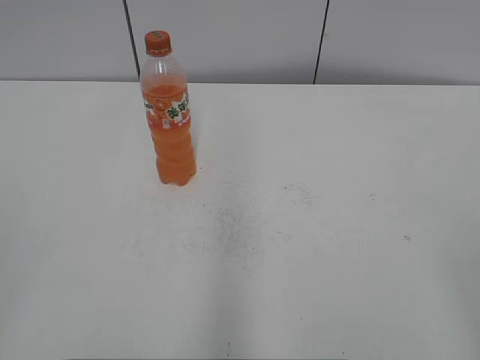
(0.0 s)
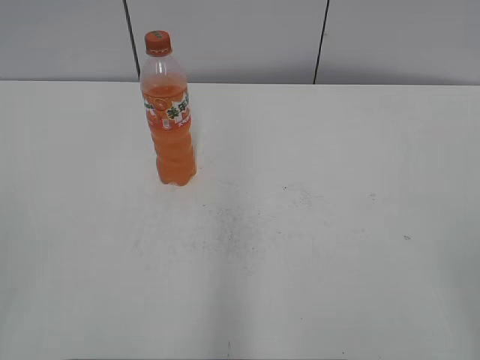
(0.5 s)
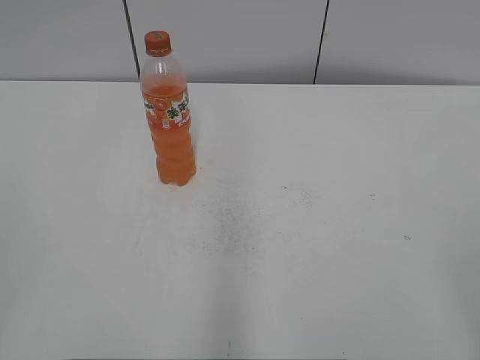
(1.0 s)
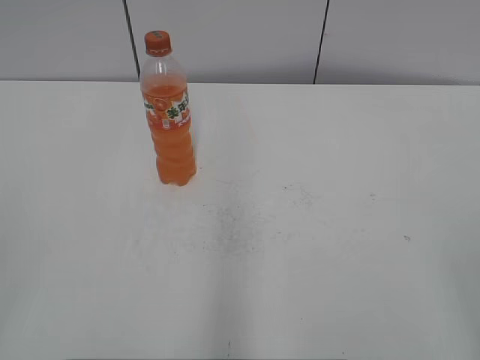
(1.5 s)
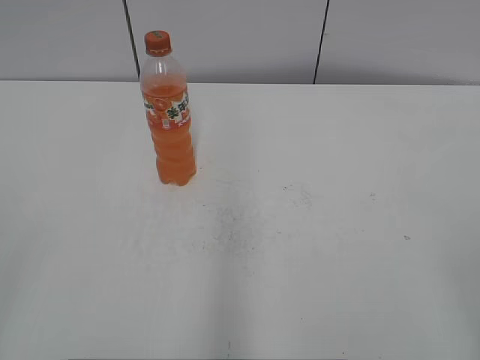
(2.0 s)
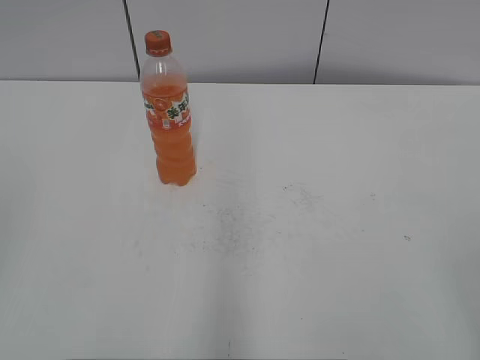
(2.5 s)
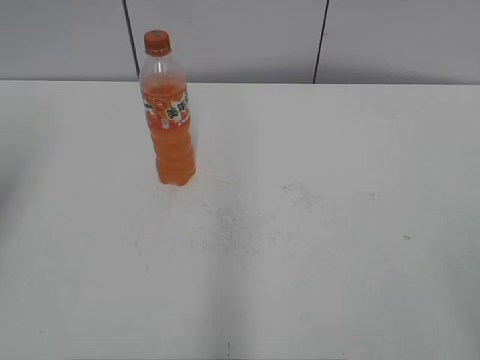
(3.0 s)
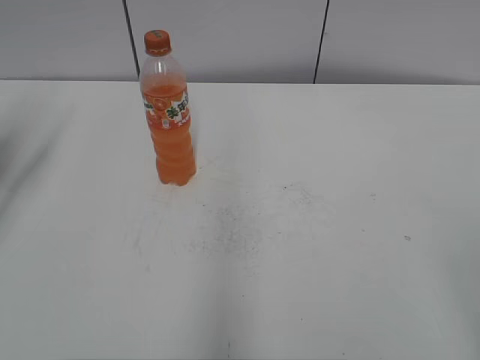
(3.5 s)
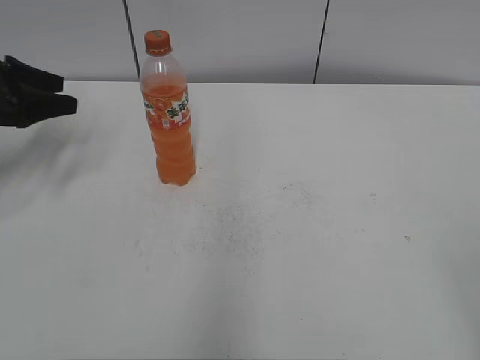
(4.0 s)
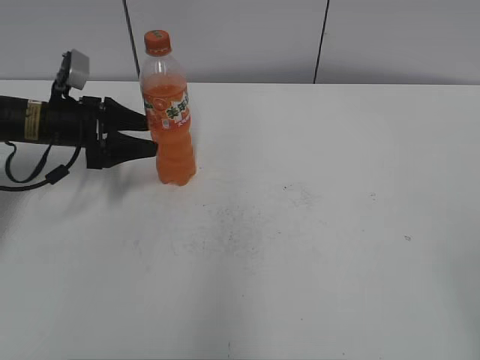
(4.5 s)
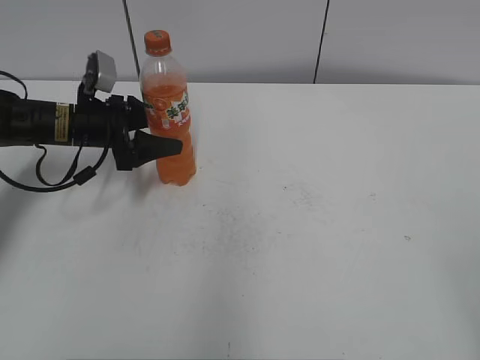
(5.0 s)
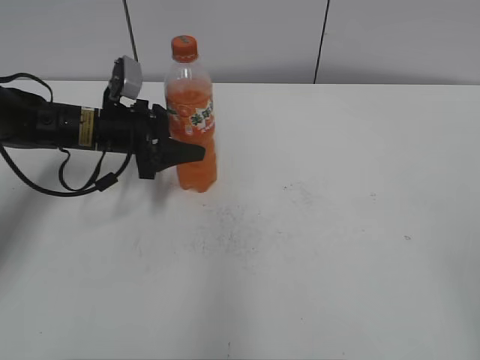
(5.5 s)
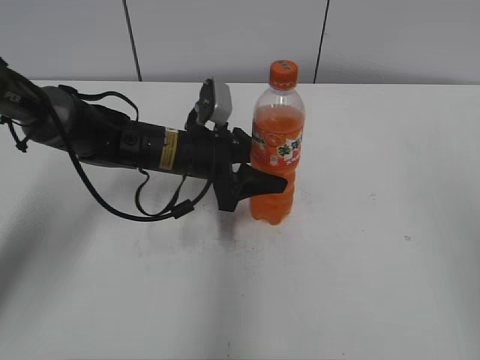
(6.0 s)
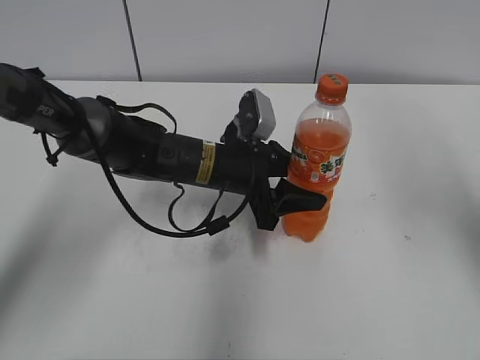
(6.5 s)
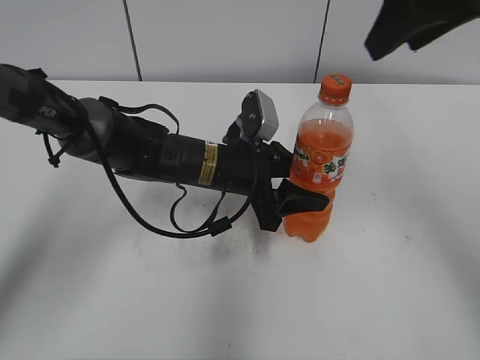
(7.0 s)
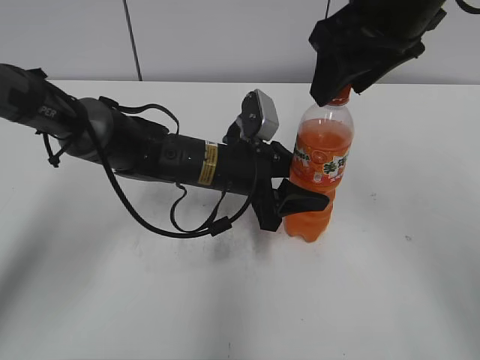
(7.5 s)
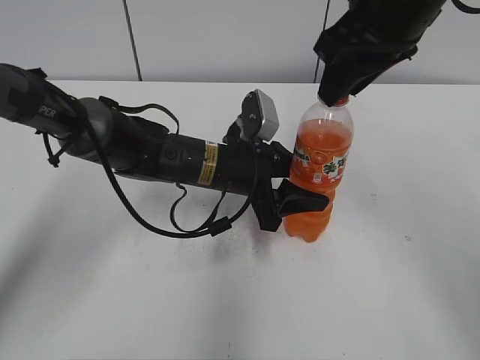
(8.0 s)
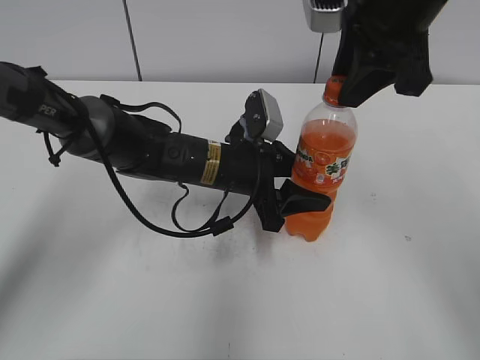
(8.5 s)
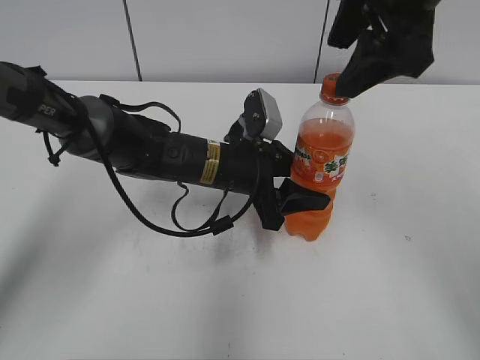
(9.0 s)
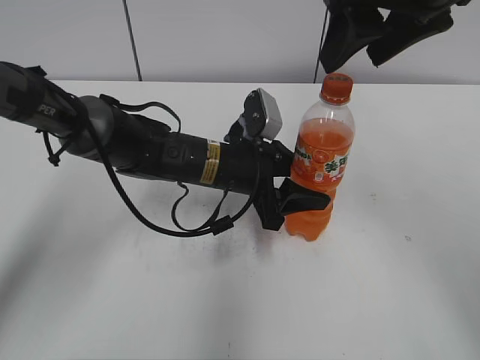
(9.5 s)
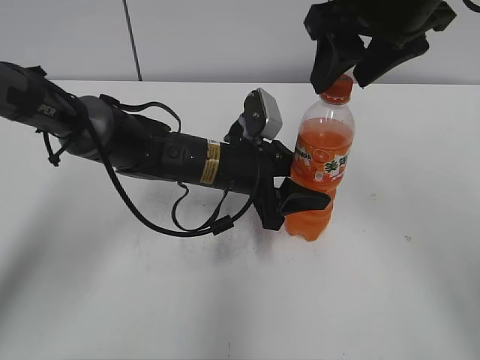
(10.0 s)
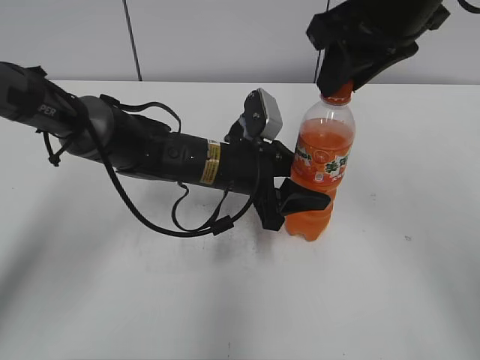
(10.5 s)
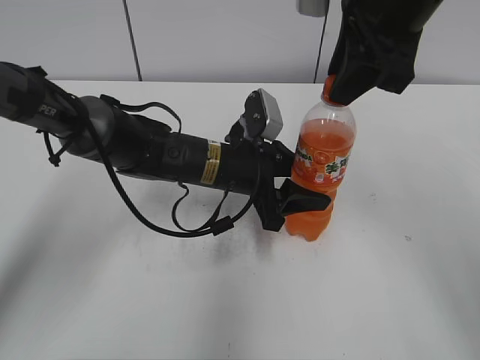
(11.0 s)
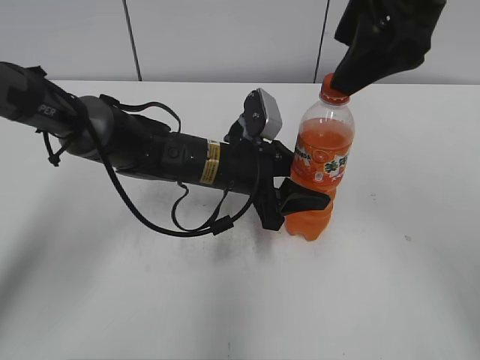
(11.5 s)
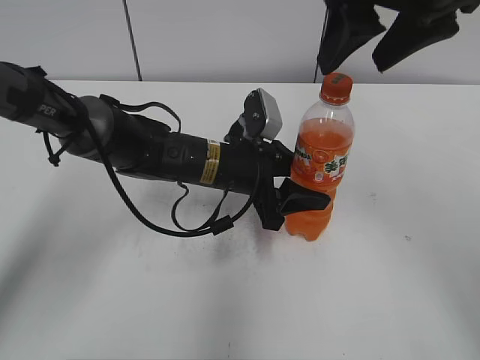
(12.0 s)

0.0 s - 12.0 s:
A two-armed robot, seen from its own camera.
Step, 0.0 s - 5.0 s: Grab the Mirinda with the left hand.
Step, 5.5 s - 6.5 s: Move the Mirinda from left to right.
2.0 s - 4.0 s: The left gripper is displaced forward by about 40 cm.
4.0 s - 6.0 s: The right gripper shifts some 10 cm upward and forward; the left gripper travels to the right by some 25 cm.
6.0 s - 8.0 s: The right gripper shifts about 30 cm forward and to the left, and closes its fingers. Meanwhile the left gripper ends up about 5 cm from where it was.
8.0 s - 10.0 s: The right gripper opens its fingers.
10.0 s - 12.0 s: The right gripper closes, then reopens.

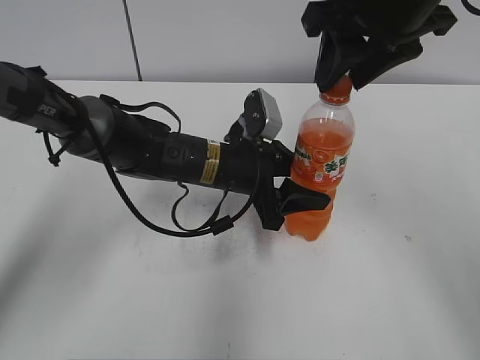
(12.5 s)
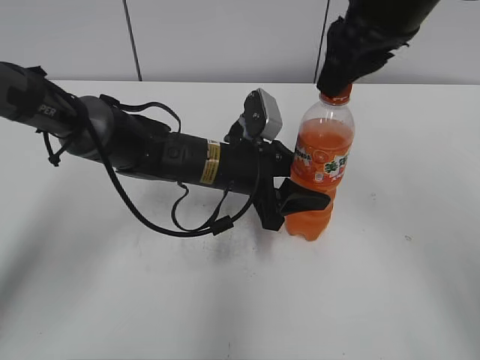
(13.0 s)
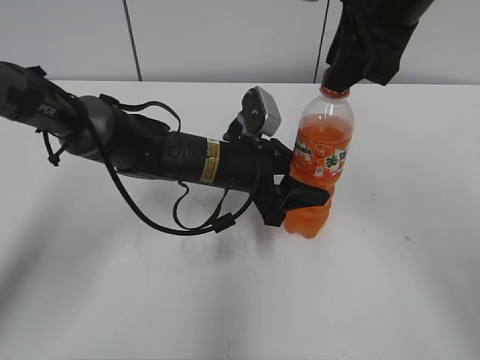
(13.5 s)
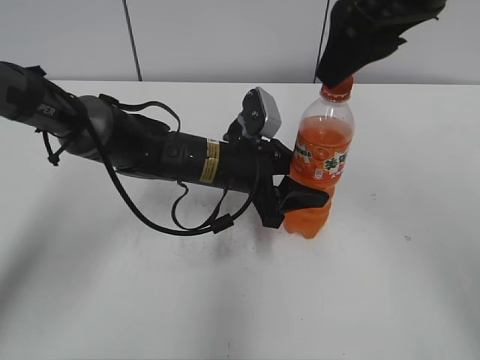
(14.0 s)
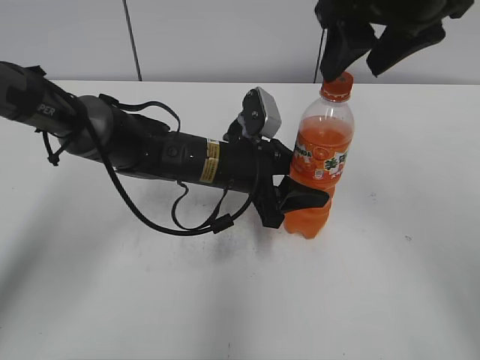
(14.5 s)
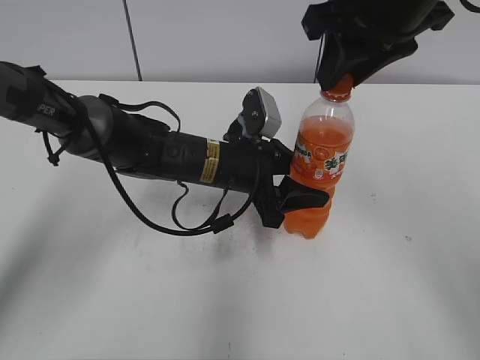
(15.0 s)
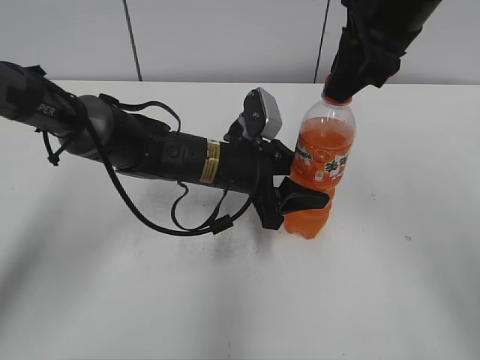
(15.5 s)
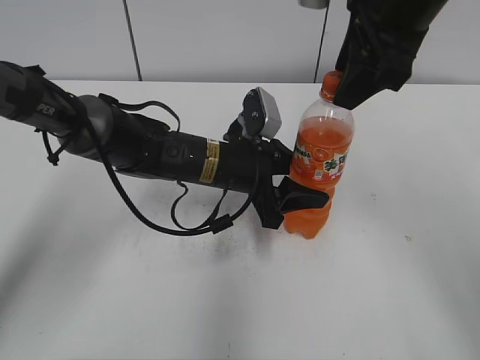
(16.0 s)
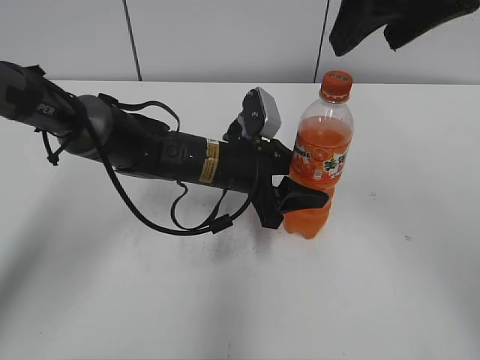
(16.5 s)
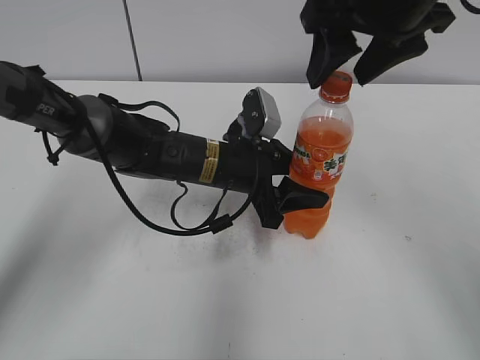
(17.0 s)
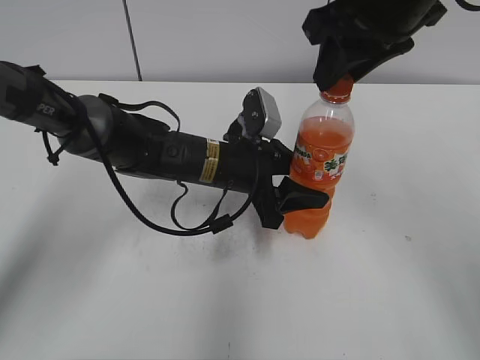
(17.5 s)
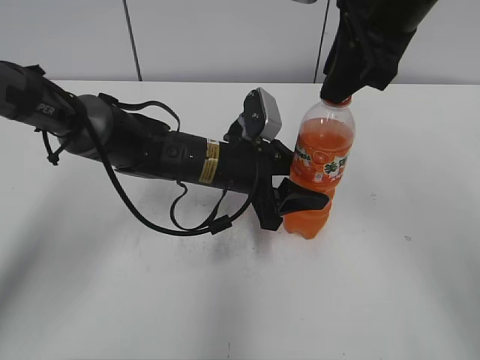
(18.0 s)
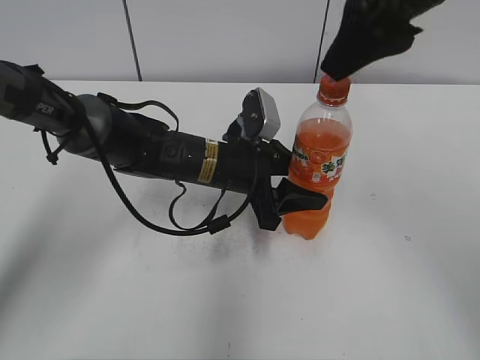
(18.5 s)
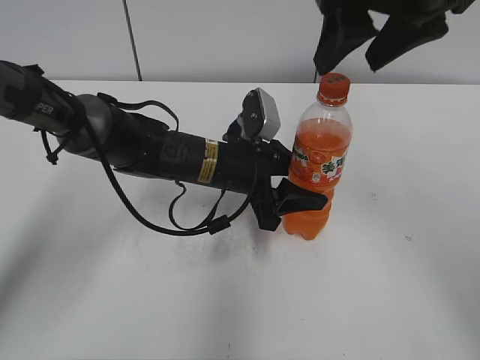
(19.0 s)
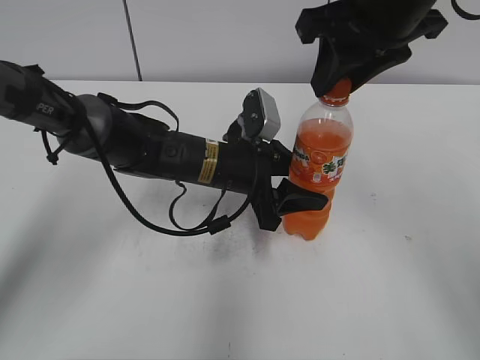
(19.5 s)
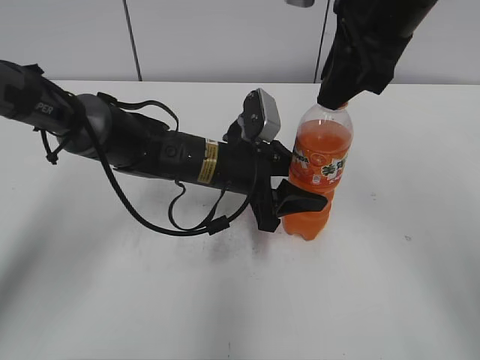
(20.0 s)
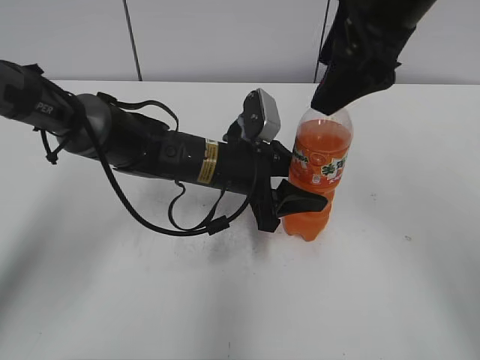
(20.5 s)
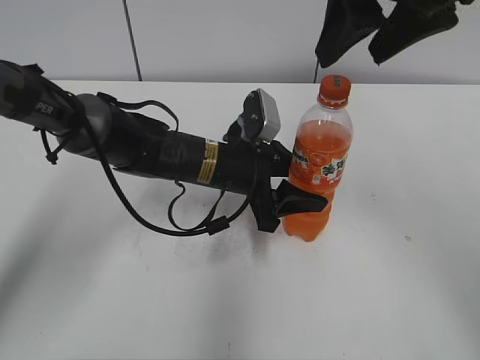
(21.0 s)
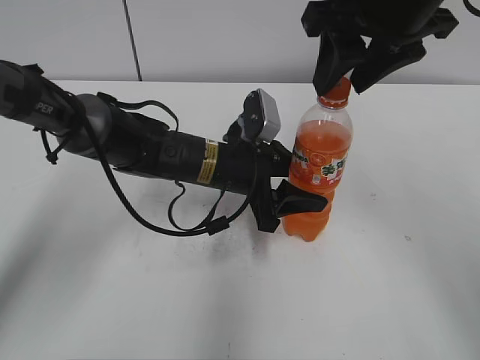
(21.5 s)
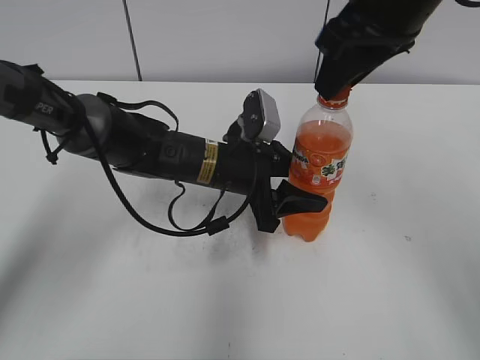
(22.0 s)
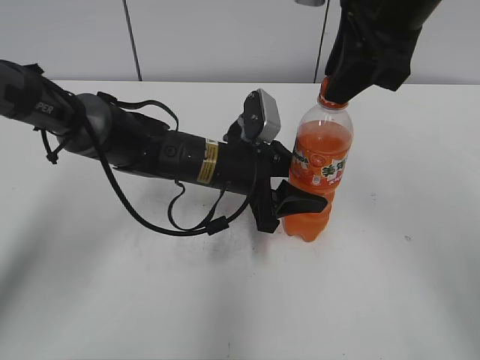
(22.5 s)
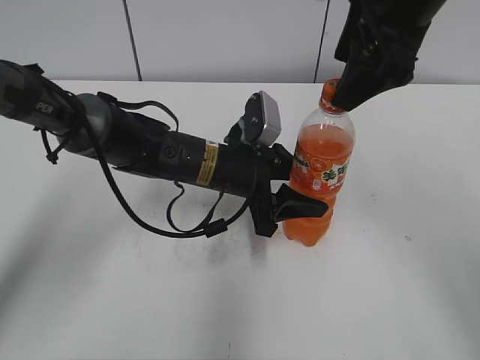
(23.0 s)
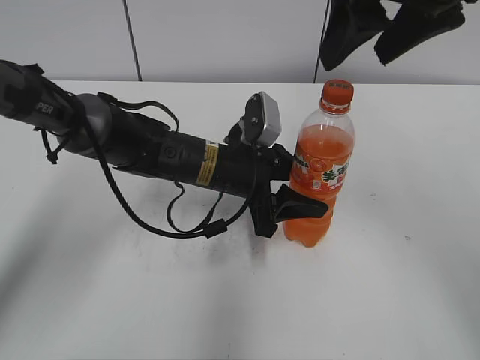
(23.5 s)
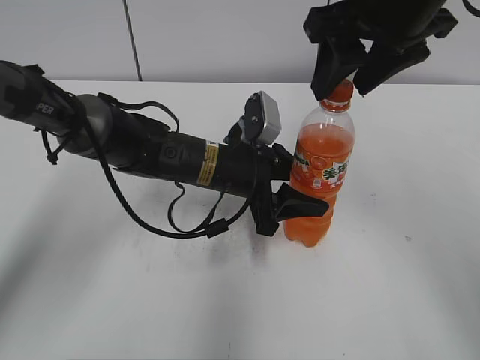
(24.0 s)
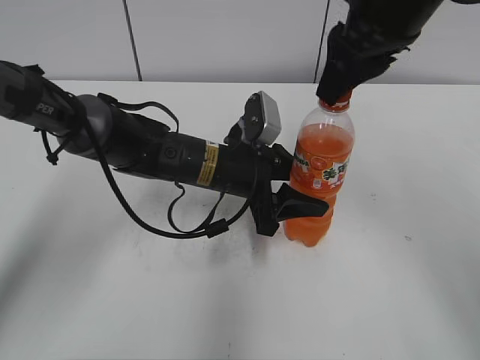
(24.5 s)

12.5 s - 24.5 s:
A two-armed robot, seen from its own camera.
12.5 s - 14.5 s: The right gripper opens up.
14.5 s - 16.5 s: The right gripper closes, then opens again.
16.5 s - 18.5 s: The right gripper closes and opens again.
18.5 s - 20.5 s: The right gripper closes, then reopens.
20.5 s - 22.5 s: The right gripper closes up.
22.5 s - 24.5 s: The right gripper opens, then closes again.

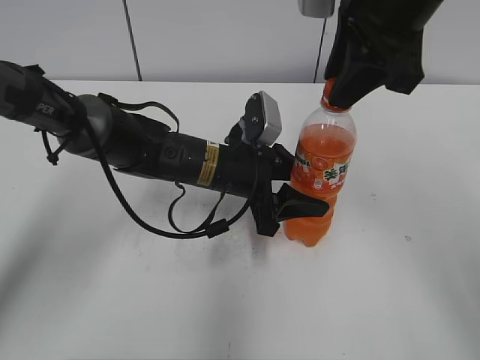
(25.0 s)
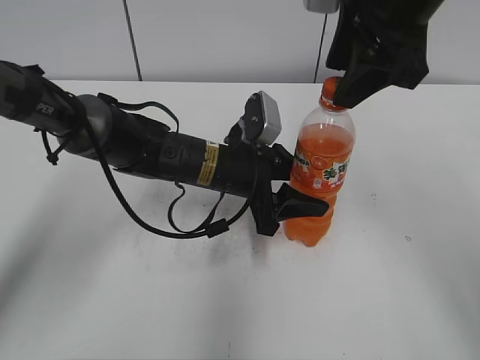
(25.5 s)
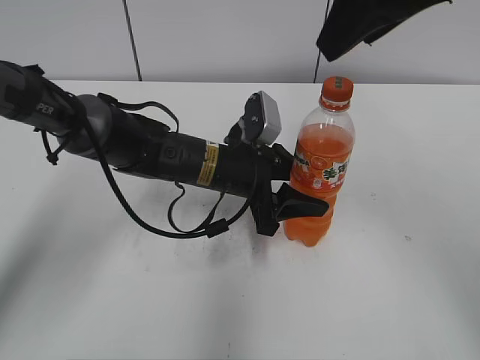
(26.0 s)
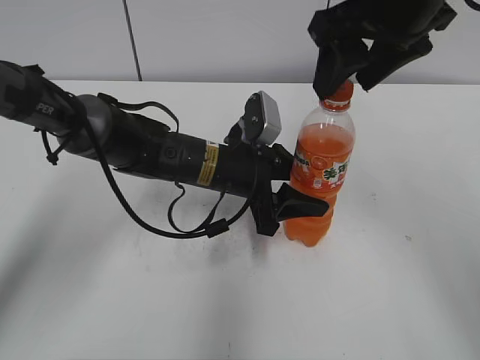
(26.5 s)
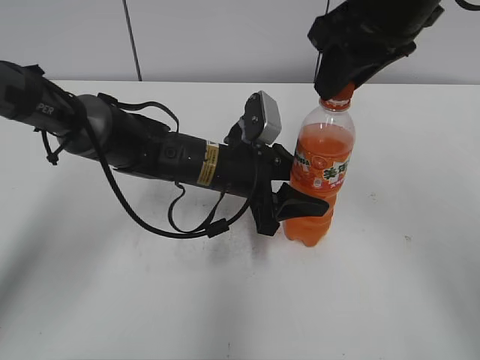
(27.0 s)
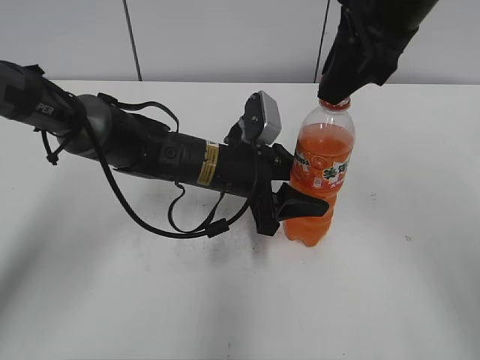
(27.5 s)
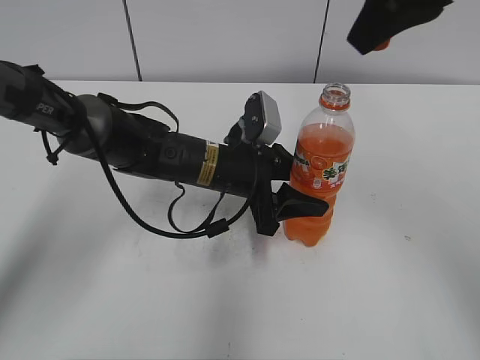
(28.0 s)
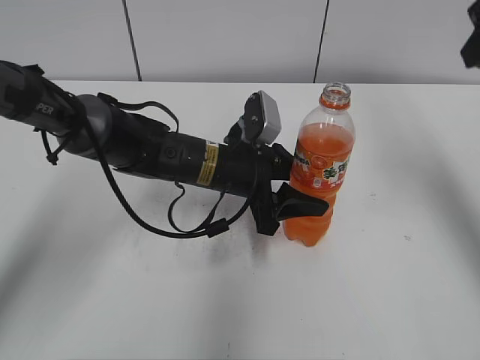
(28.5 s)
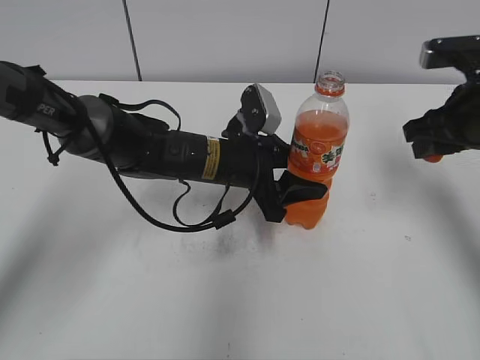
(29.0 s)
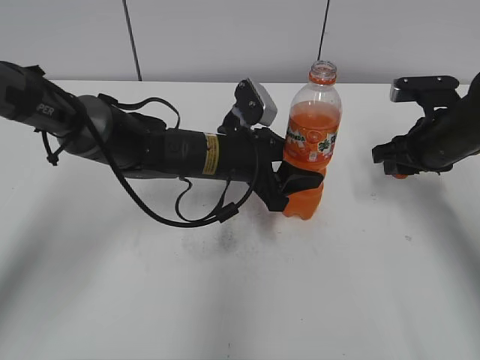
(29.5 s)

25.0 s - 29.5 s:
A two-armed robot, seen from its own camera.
25.0 s - 27.0 s: The right gripper opens, then closes again.
27.0 s - 29.5 s: The right gripper goes approximately 25 cm downward and to the right.
